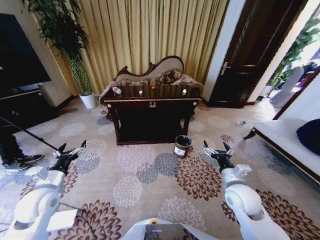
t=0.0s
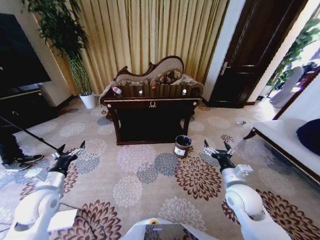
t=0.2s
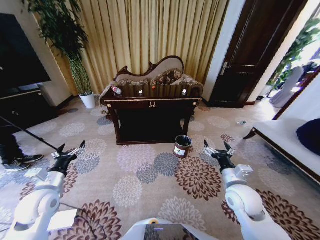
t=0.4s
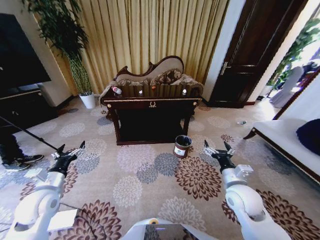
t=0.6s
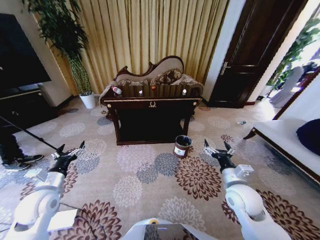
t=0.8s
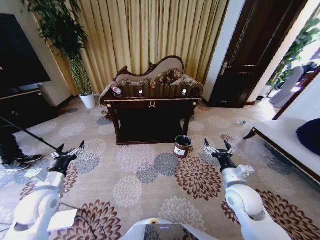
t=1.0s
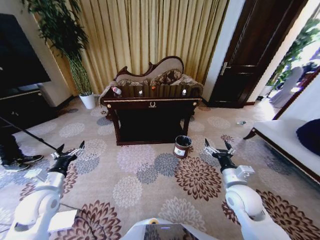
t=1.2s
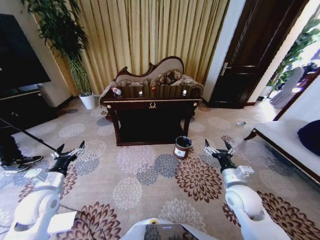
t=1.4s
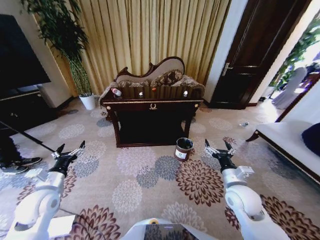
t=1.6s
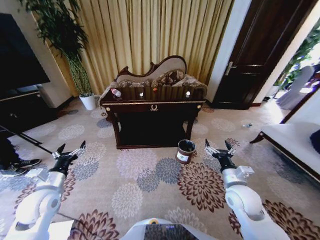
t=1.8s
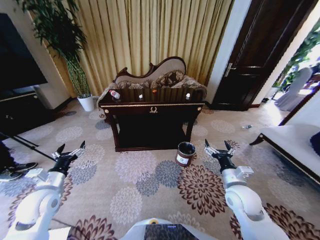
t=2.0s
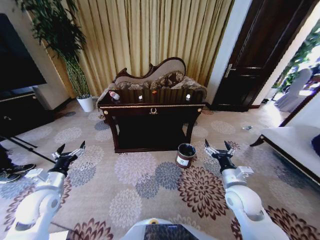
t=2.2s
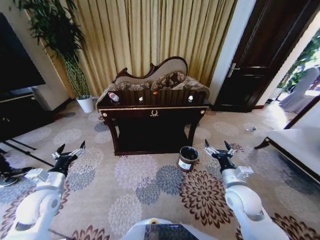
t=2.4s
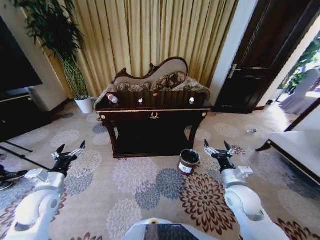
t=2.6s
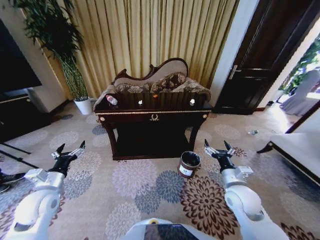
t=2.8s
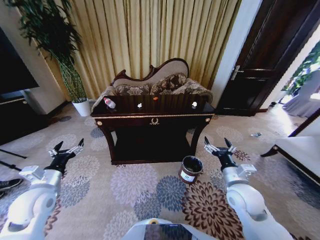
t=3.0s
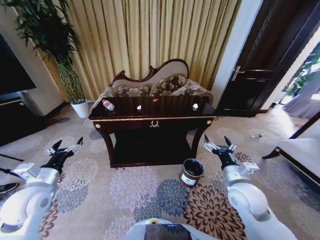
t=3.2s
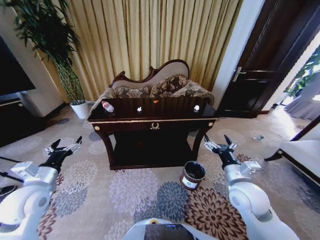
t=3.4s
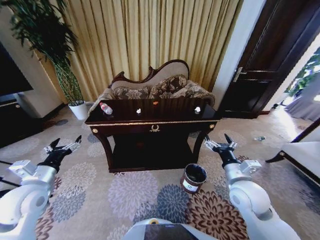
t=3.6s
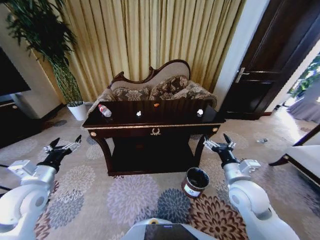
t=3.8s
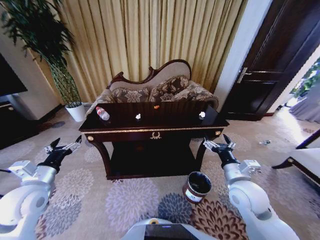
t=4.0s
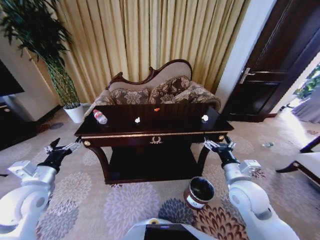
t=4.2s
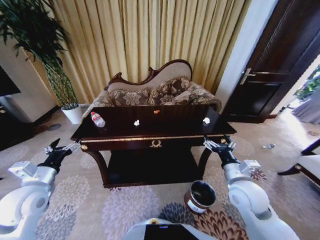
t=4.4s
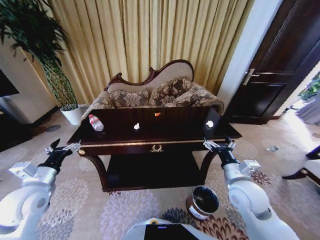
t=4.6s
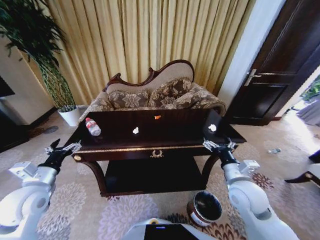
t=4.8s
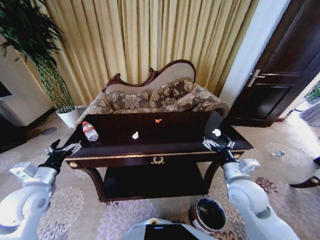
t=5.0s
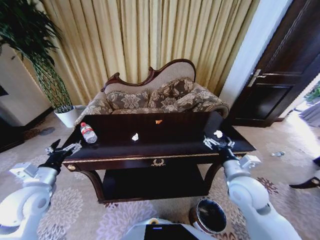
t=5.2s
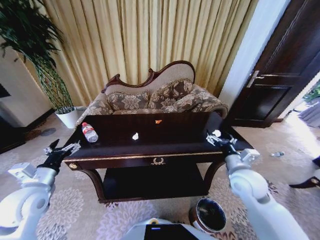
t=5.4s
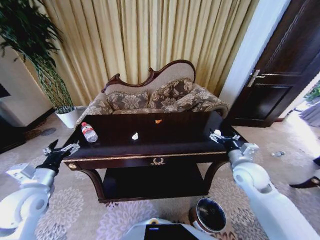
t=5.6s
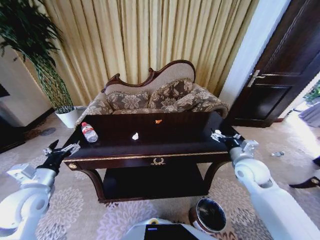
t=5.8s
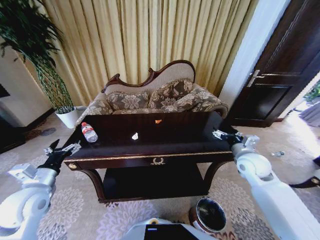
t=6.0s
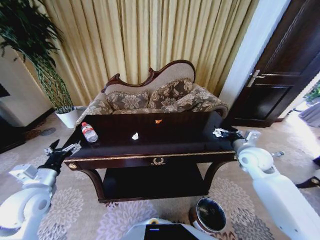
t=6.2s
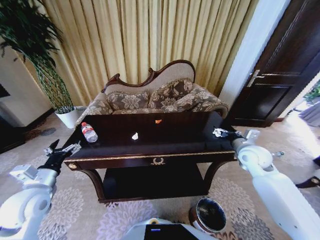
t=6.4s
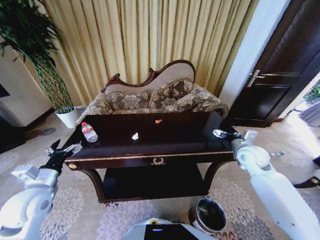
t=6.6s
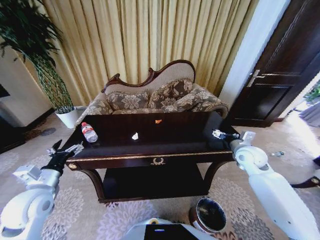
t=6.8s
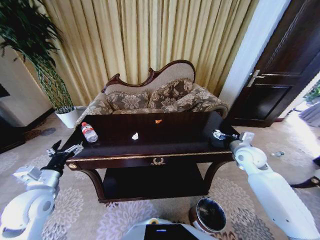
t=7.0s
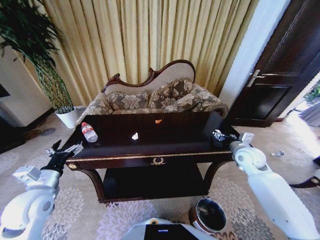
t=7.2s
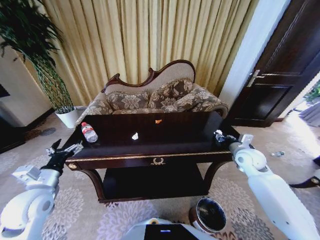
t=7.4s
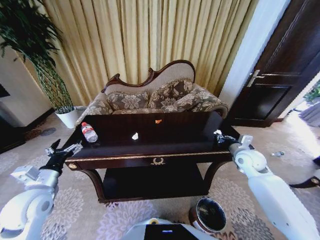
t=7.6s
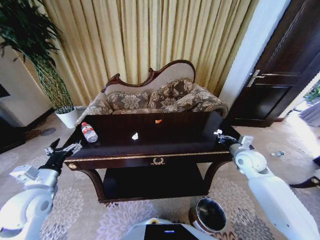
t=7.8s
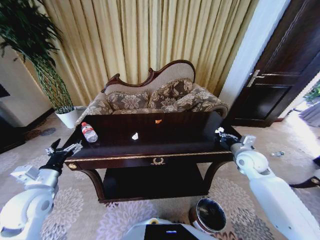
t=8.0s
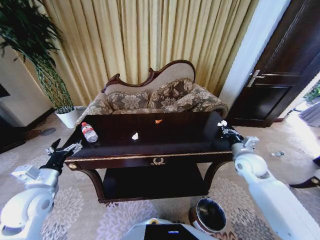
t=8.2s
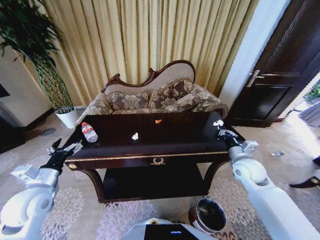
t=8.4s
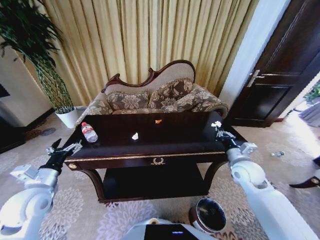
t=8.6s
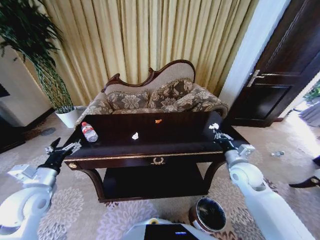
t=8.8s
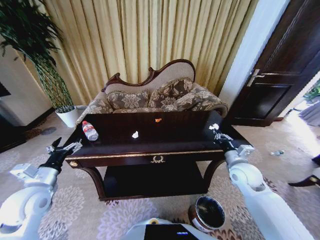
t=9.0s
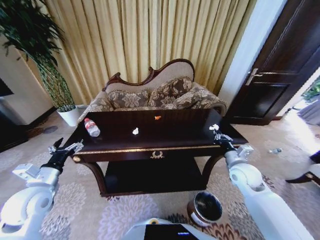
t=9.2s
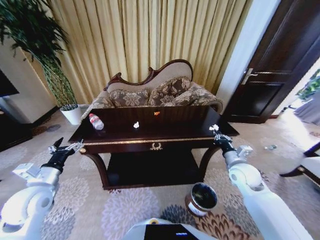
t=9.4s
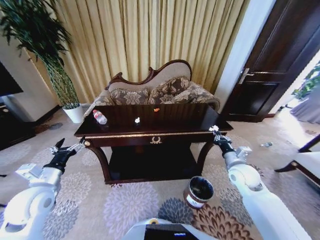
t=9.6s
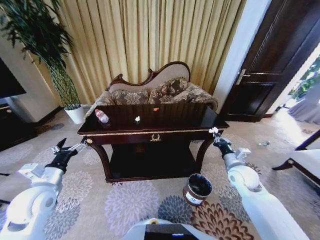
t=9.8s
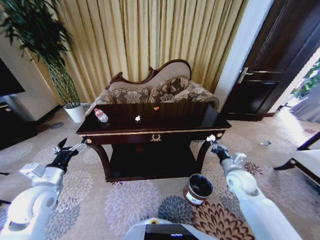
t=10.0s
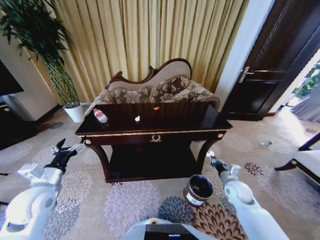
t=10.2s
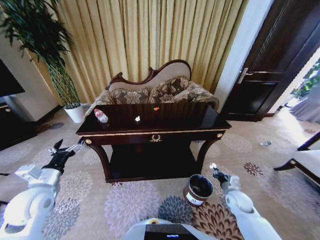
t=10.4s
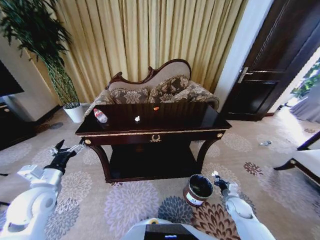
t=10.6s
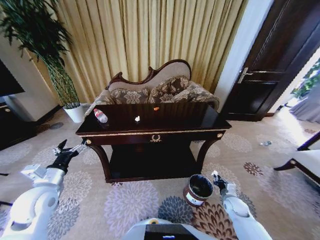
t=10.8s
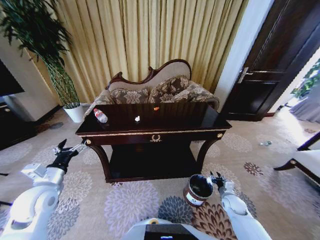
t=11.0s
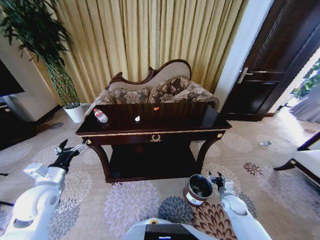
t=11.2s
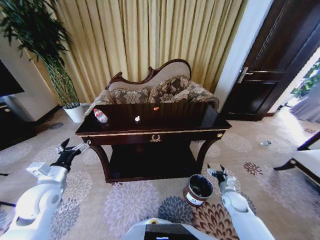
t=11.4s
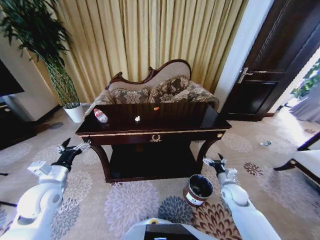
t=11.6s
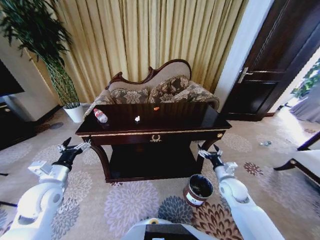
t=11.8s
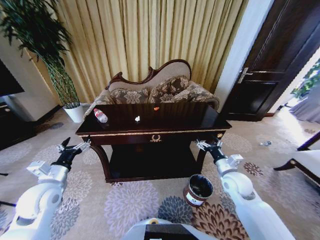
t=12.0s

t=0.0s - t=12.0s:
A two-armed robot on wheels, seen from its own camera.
Task of the whole recording: Move to the front of the table and place the trash on the table into the trash bin.
t=4.4s - t=6.0s: The right gripper shifts some 15 cm forward and to the right.
t=6.0s - t=7.6s: The right gripper closes up.
t=7.6s - t=9.0s: The right gripper heads backward and to the left, covering approximately 10 cm.
t=9.0s - t=10.4s: The right gripper heads downward, covering some 20 cm.
t=10.4s - t=12.0s: The right gripper shifts approximately 15 cm upward and to the left, and opens.

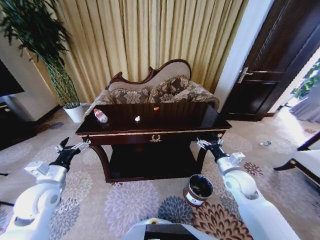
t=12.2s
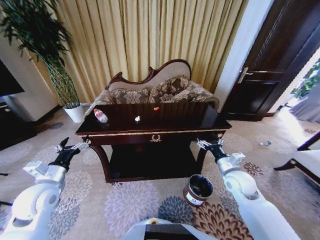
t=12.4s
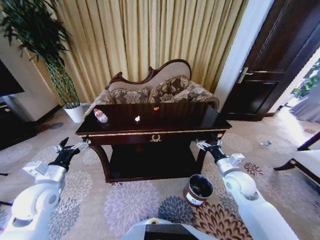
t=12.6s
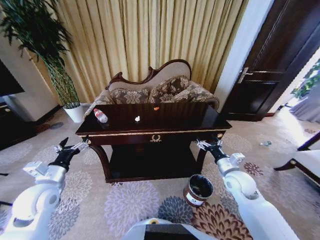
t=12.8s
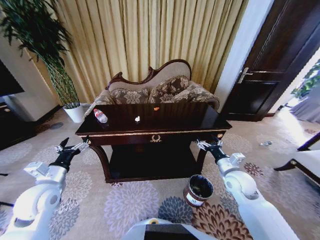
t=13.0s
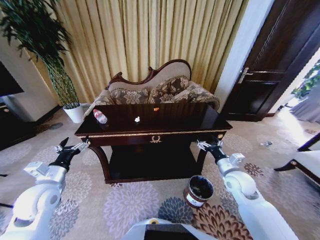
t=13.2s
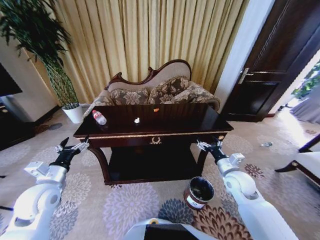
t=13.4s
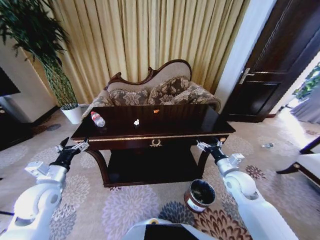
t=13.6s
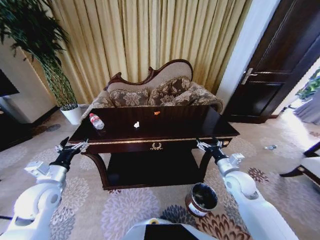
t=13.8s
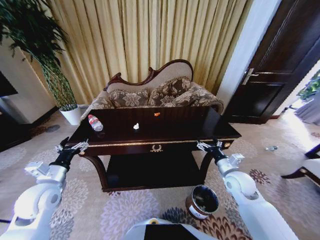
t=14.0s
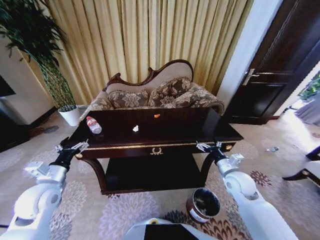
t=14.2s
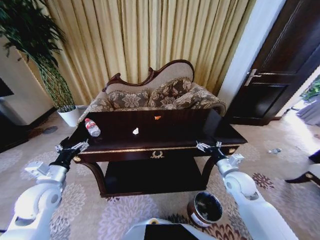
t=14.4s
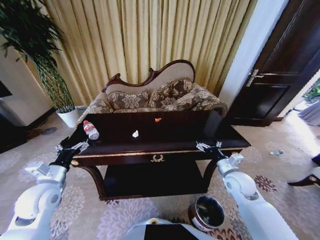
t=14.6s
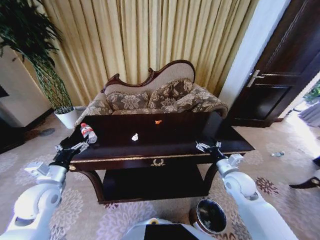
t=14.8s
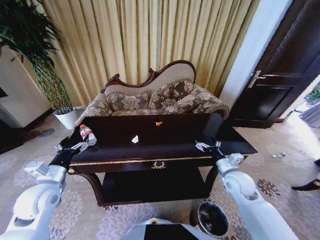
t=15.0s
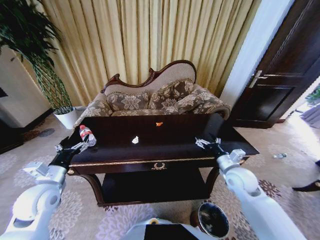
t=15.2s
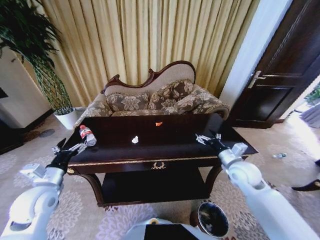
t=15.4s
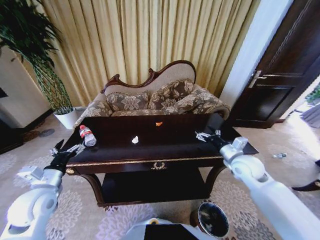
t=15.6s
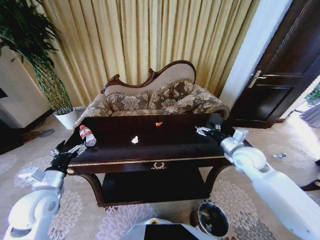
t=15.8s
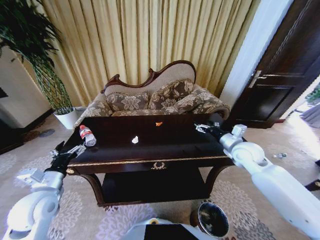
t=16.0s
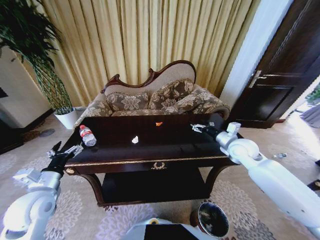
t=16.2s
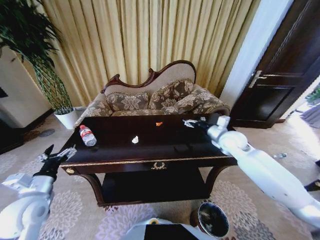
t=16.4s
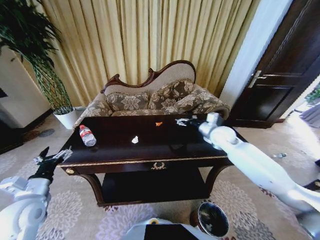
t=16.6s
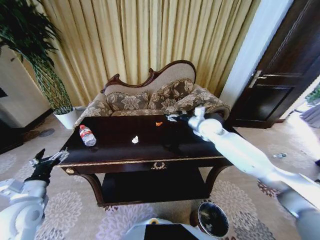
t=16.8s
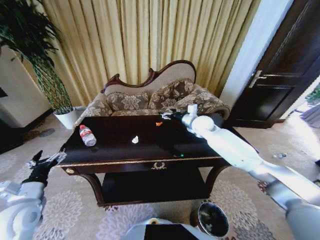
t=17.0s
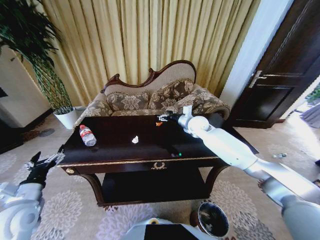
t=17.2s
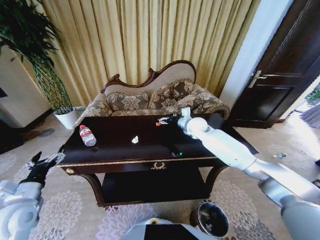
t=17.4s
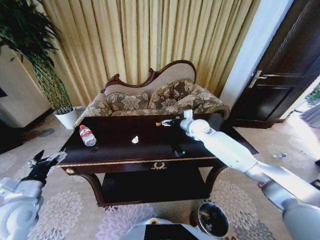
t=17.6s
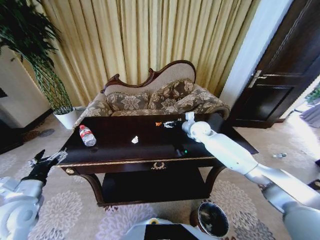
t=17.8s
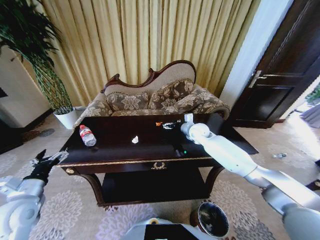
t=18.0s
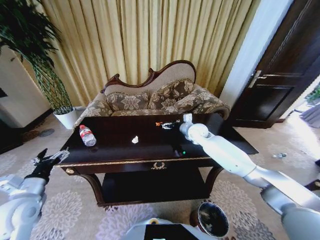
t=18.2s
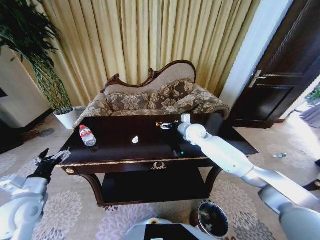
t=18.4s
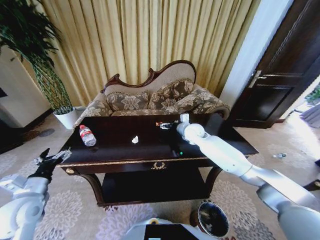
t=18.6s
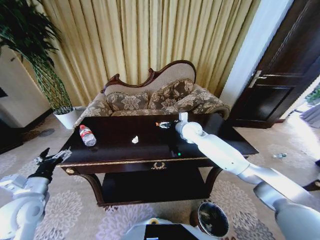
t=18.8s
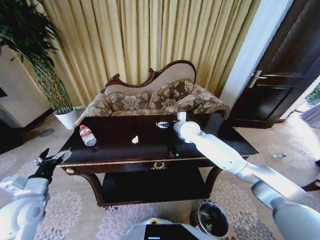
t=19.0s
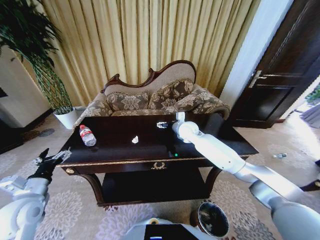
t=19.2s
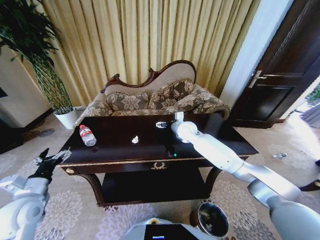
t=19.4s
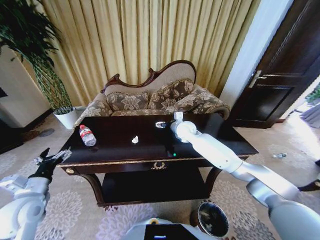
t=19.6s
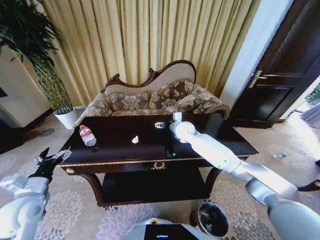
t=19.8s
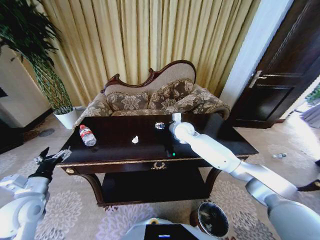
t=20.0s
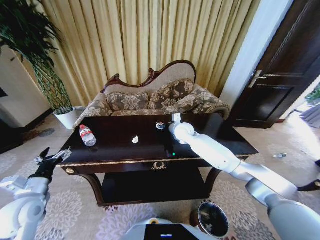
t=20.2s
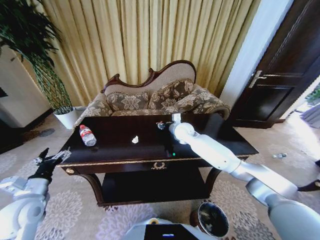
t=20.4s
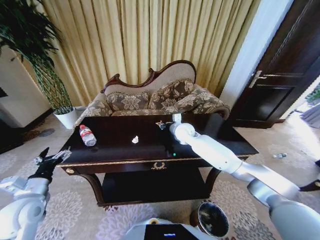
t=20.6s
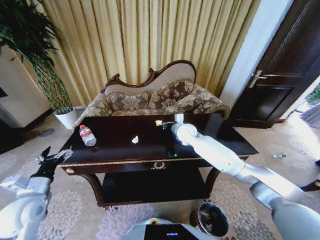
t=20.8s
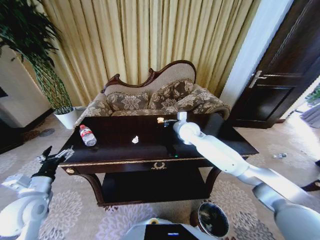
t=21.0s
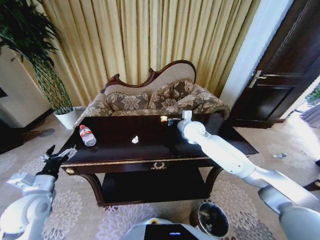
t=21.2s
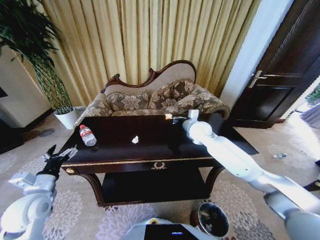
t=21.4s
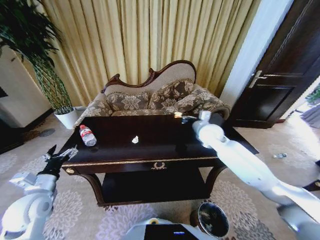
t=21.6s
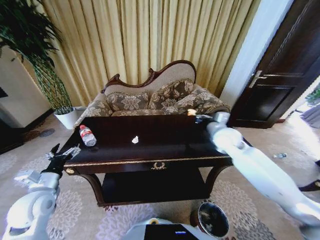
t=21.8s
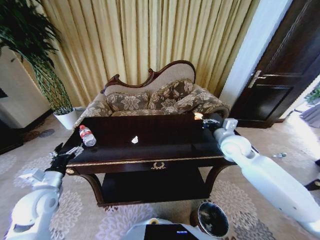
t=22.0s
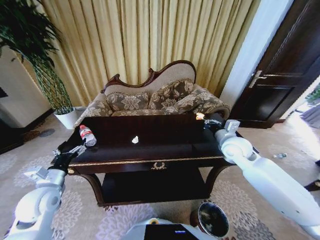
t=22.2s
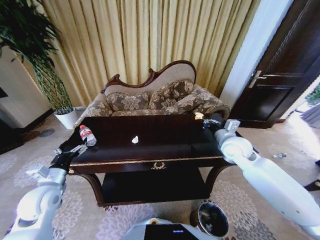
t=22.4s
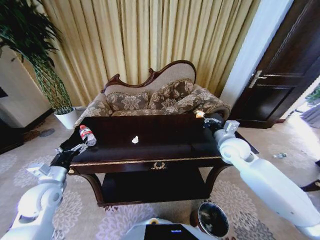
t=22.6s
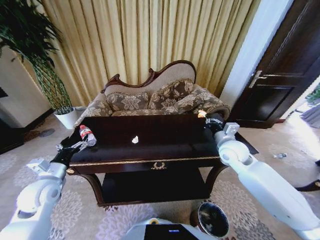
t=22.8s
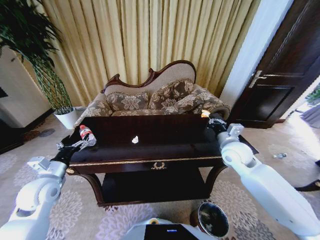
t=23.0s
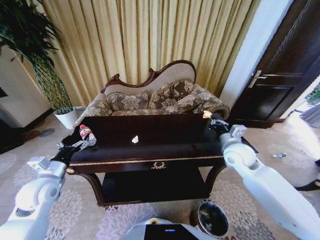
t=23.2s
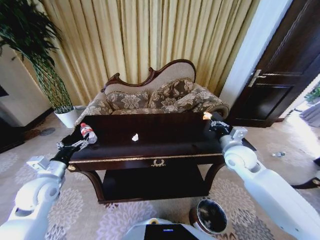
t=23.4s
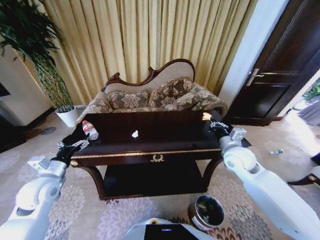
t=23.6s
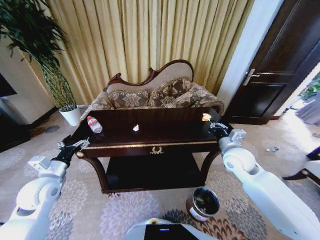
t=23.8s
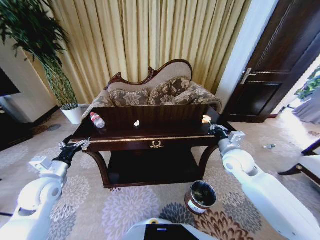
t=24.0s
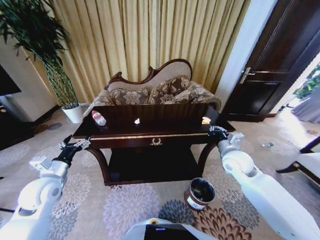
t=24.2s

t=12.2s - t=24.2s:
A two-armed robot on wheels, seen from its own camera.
Task of the whole recording: Move to the front of the table and place the trash on the table into the trash bin.
t=15.2s - t=16.6s: The right gripper heads forward and upward, covering about 20 cm.
t=16.6s - t=18.2s: The right gripper shifts about 10 cm to the left and forward.
t=18.2s - t=19.8s: The right gripper is displaced to the left by about 5 cm.
t=19.8s - t=21.2s: The right gripper ends up roughly 5 cm from where it was, and closes its fingers.
t=21.2s - t=22.6s: The right gripper travels to the right and backward by approximately 15 cm.
